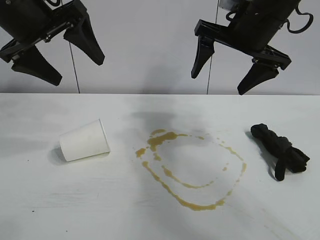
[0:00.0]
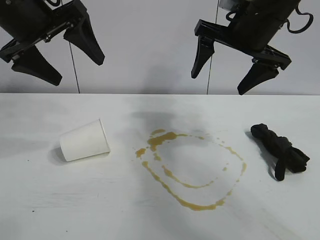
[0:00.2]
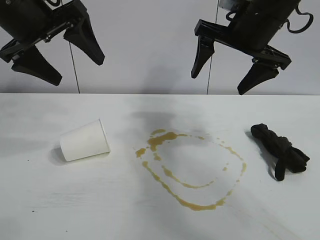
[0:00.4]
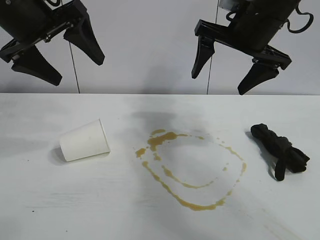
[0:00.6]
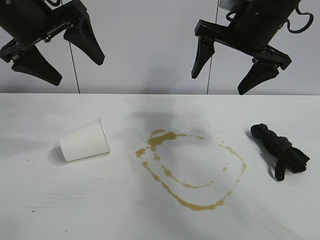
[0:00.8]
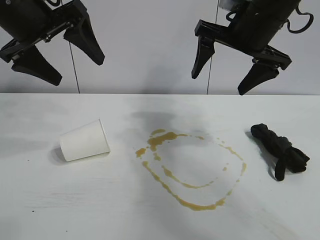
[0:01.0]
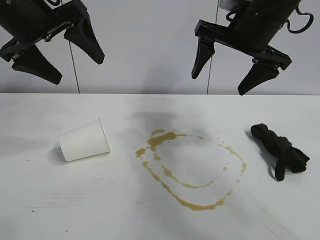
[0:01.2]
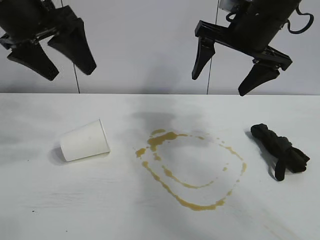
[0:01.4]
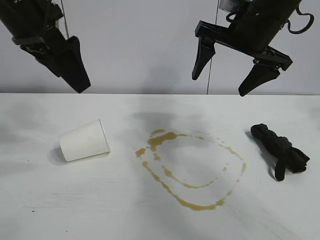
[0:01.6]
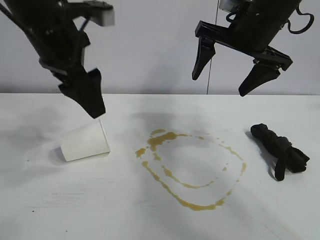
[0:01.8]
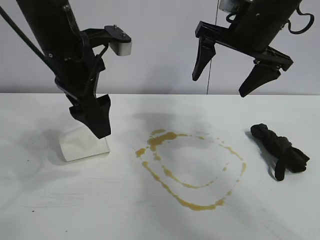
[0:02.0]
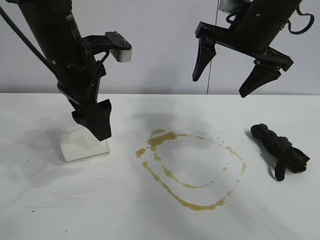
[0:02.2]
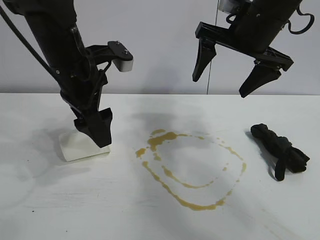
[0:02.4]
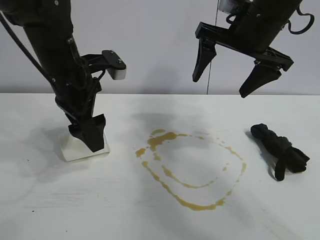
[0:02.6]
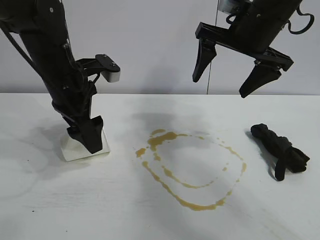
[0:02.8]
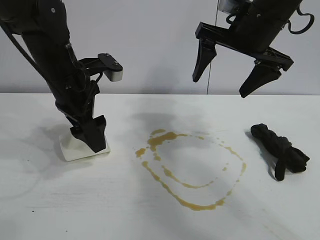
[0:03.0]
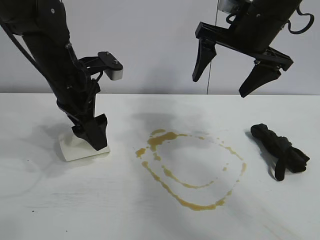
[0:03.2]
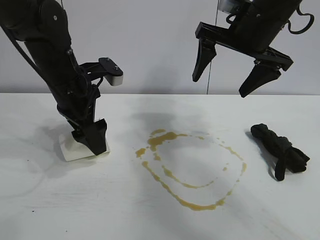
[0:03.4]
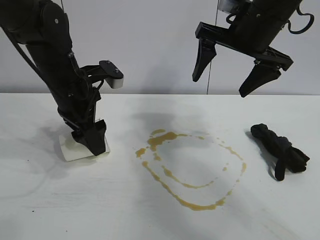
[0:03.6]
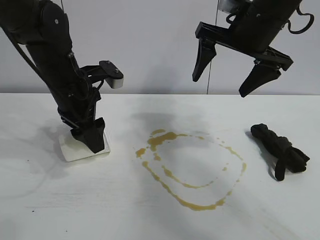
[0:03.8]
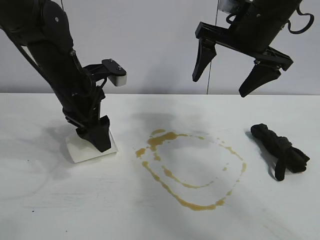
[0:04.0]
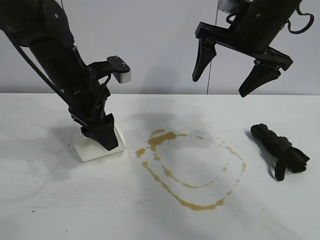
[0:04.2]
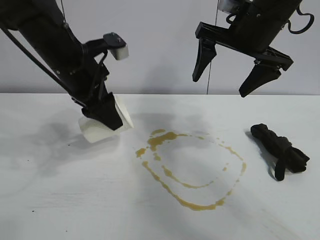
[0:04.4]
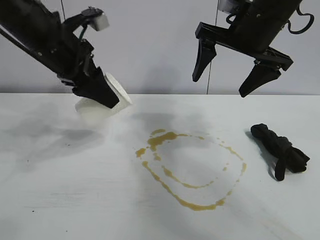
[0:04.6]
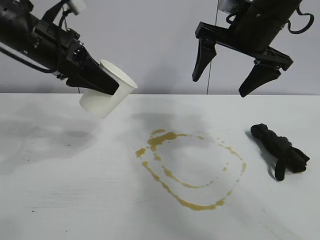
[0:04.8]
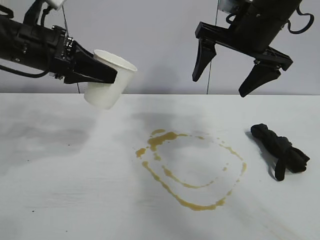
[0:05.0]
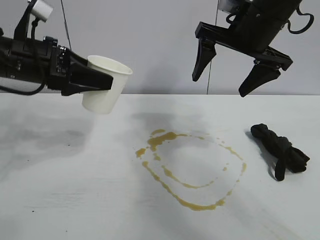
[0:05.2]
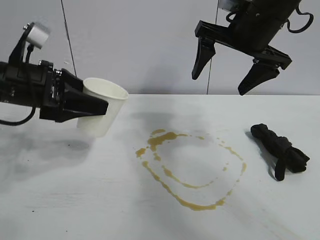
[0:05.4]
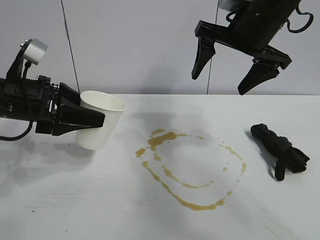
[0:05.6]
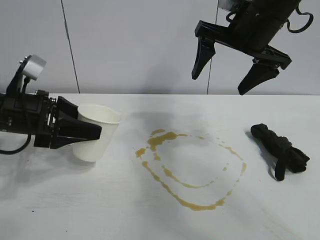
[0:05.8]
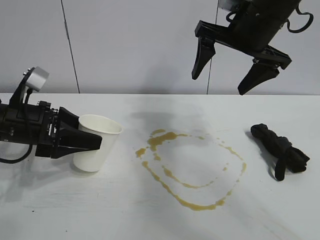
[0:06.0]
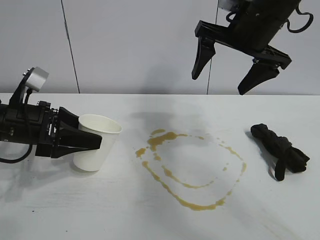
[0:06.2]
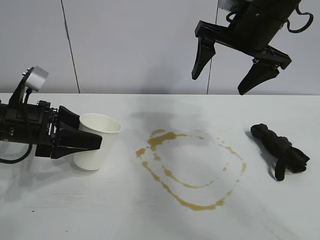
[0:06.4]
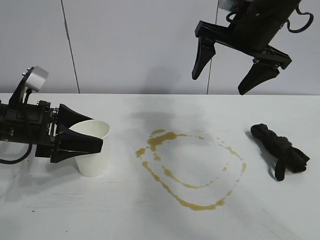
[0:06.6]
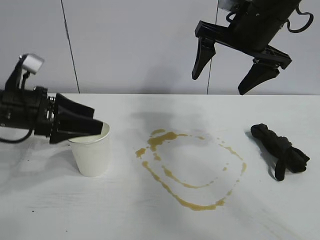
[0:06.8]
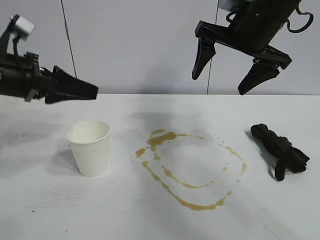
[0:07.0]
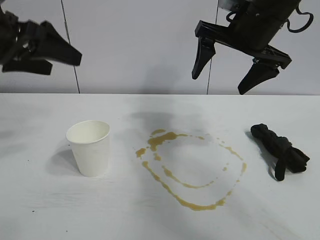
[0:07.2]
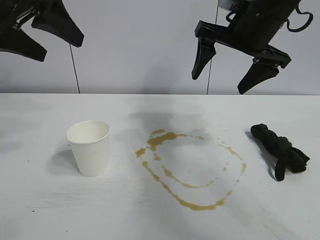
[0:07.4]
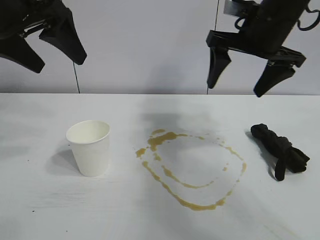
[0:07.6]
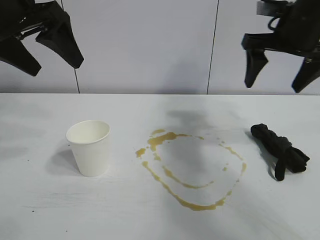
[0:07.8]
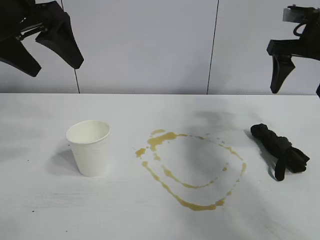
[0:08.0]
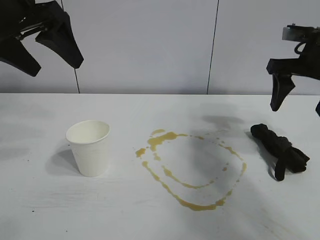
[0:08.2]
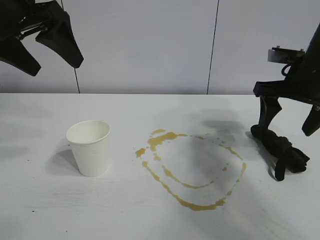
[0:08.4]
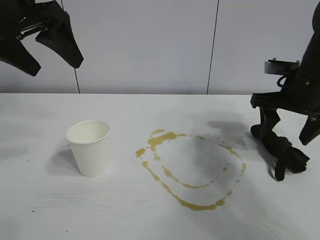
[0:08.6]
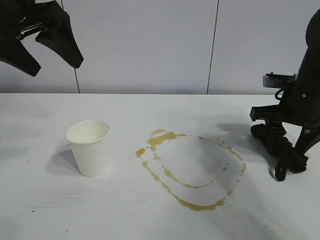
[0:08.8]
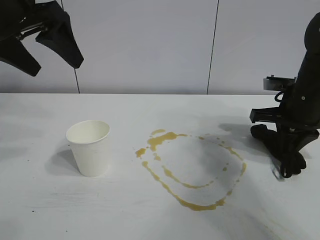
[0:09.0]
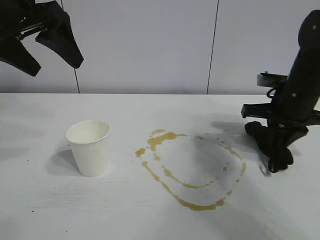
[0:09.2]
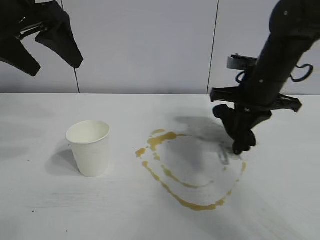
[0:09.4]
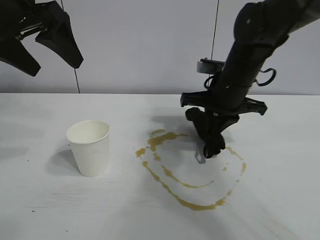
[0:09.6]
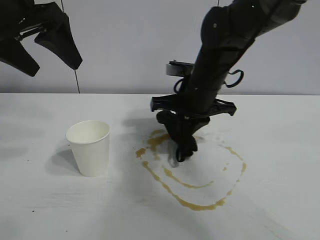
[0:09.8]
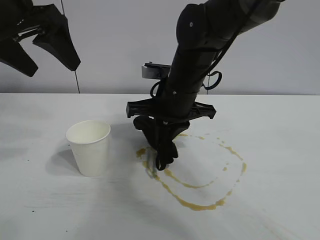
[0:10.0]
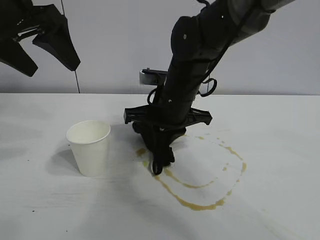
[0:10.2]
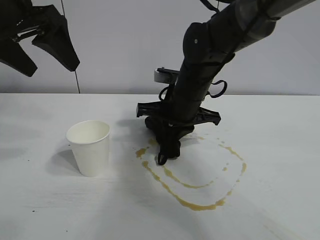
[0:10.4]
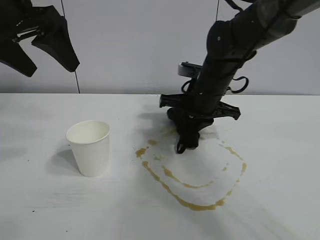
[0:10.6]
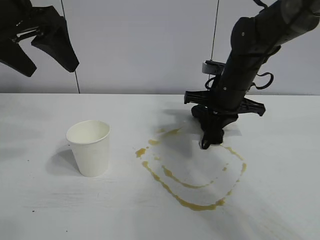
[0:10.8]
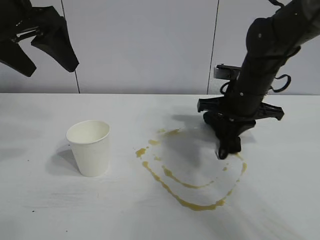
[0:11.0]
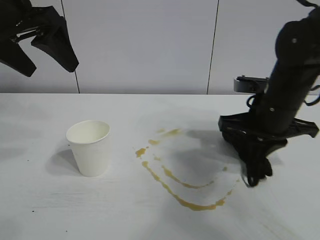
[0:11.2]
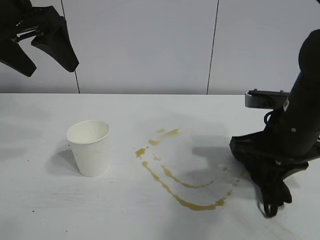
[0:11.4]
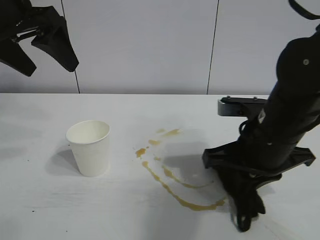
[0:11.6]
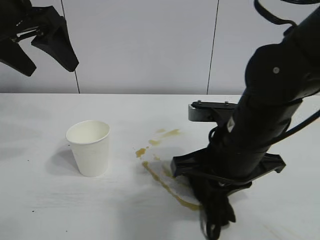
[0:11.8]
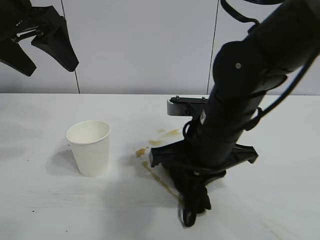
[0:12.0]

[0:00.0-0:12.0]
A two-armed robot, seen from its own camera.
Task of the whole recording: the left gripper pick up the fallen cup and place it upright, the right gripper grasp the black rag and wipe the stain on the table, the right gripper put the black rag back in its original position.
Step, 0:01.4 to 0:03.8: Grasp the paper cup with left gripper.
Step, 0:04.0 to 0:06.4: Stand the paper cup upright with left gripper.
Step, 0:06.6 to 0:08.8: Grasp the rag with right gripper.

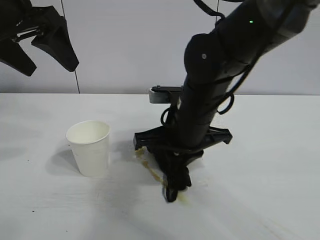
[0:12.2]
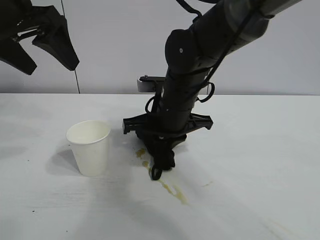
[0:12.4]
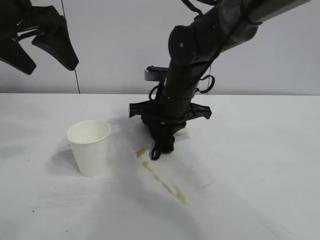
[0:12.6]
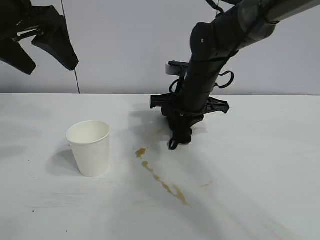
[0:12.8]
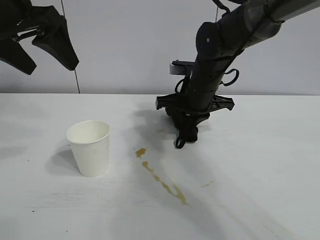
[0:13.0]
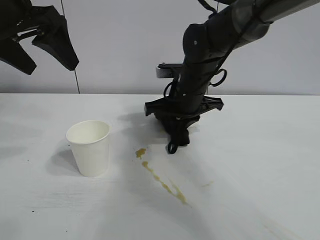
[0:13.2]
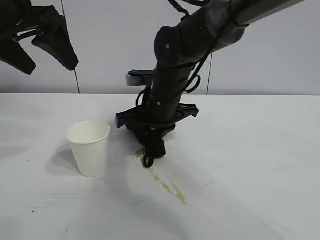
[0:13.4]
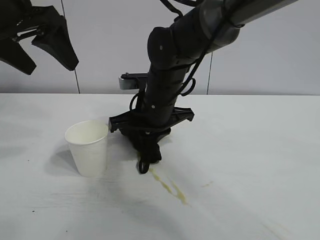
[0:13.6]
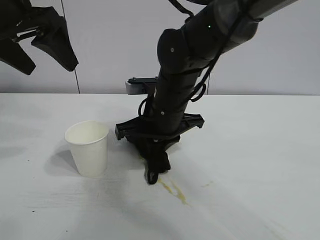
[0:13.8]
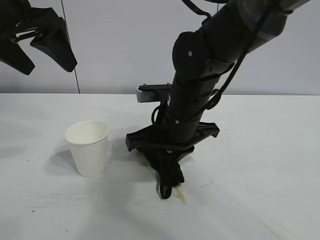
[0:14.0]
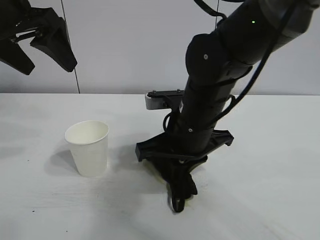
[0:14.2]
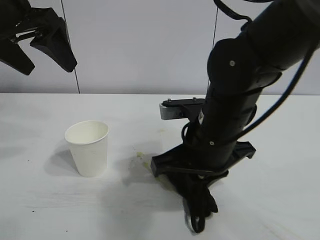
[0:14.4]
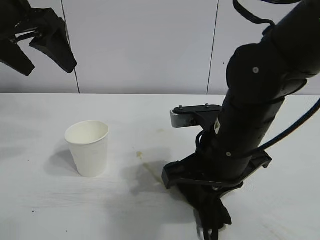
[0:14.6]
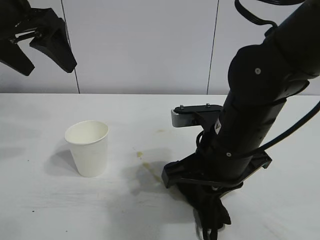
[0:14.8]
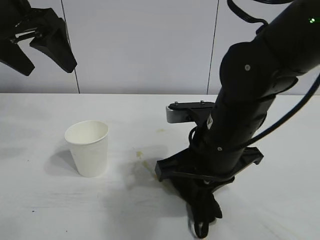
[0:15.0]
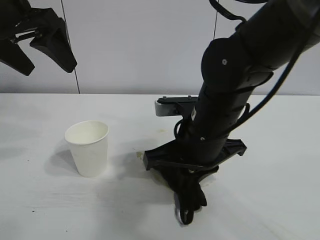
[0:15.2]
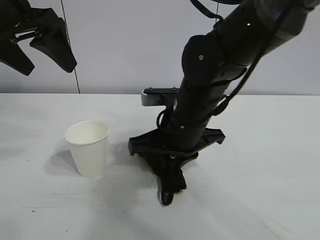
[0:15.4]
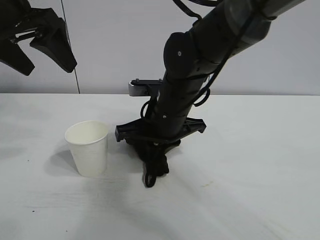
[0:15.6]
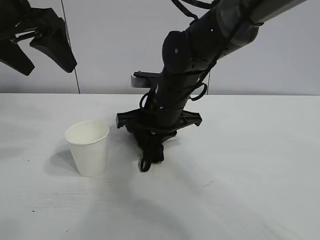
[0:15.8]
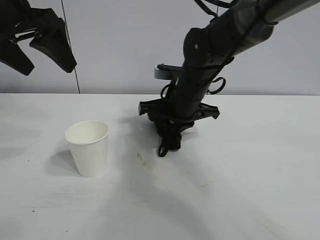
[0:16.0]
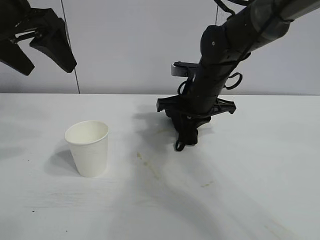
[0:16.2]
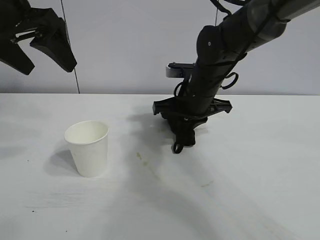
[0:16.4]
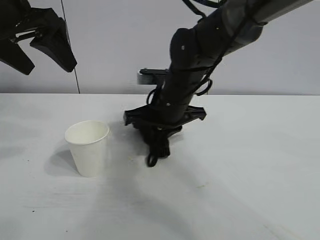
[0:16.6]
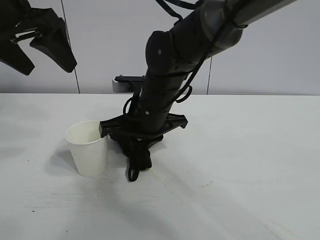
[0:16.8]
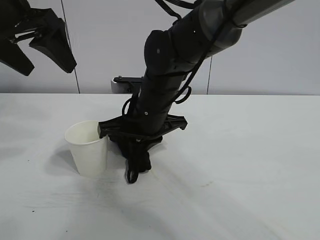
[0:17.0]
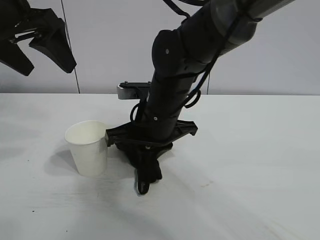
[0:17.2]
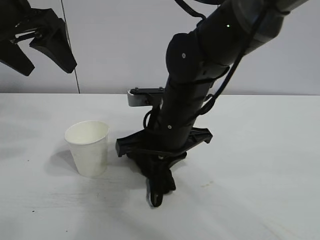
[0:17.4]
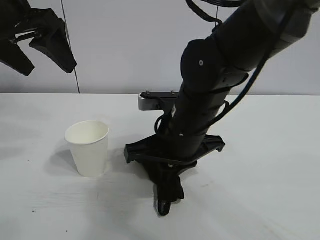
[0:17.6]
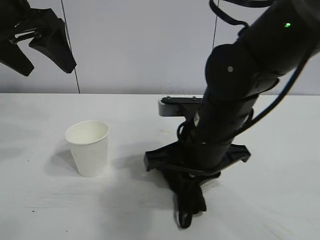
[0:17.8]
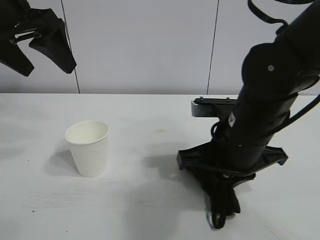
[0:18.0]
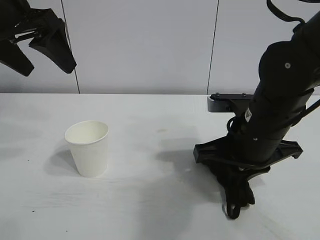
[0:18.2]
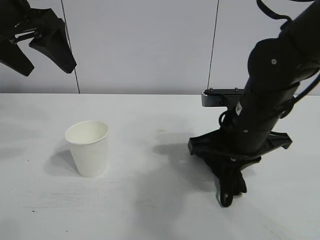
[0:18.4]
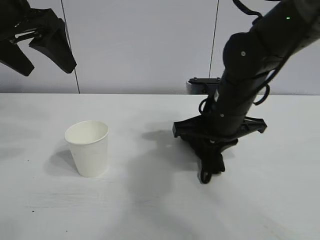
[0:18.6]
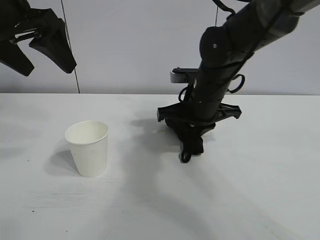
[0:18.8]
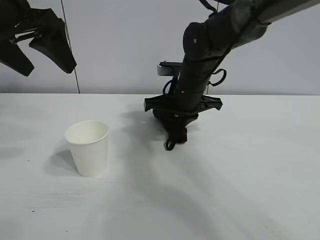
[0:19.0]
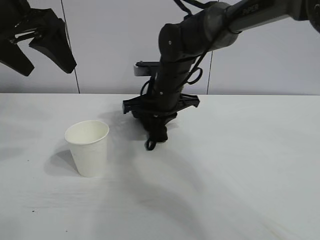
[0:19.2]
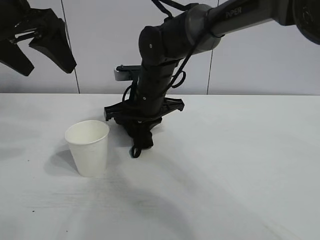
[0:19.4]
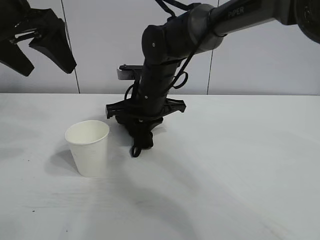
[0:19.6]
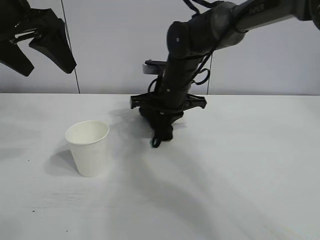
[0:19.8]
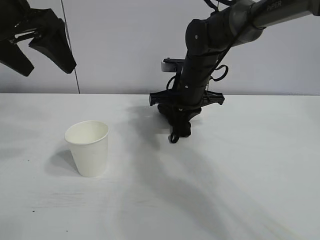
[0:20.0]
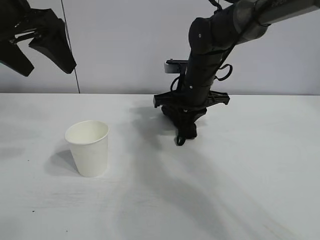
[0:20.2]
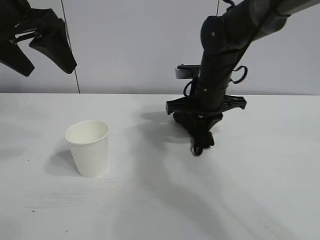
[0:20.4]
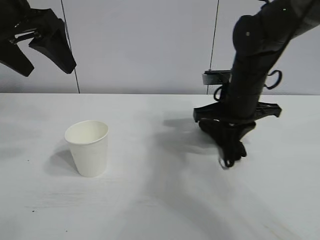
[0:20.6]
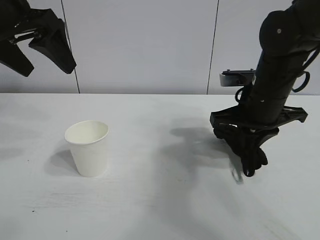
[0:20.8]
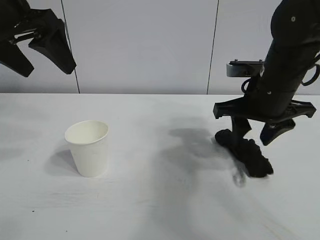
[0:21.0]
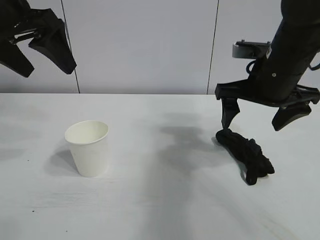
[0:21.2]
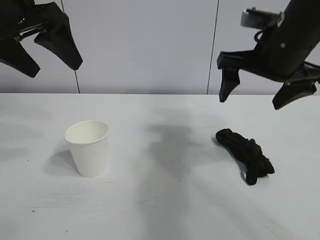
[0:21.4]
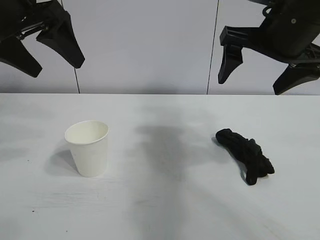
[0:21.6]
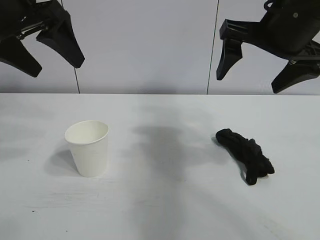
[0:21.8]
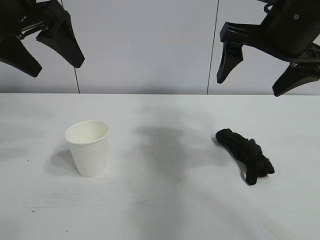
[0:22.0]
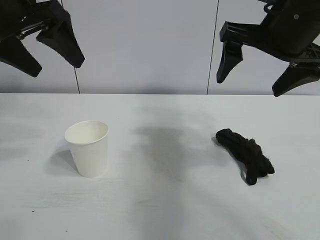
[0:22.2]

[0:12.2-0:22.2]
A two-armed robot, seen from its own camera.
Task of the whole recording: the left gripper pick up the fallen cup and place it upright, the right gripper grasp the black rag and wipe the stain on the table, the right gripper put the black rag back in its original position.
Step, 0:12.2 to 0:20.4: Wipe the stains off the table with the rag with right gripper.
Step, 0:20.8 to 0:21.0: Place the rag on the table with right gripper.
